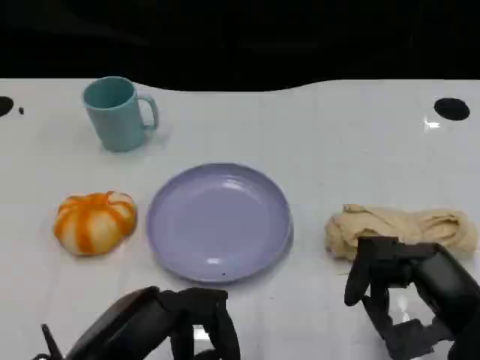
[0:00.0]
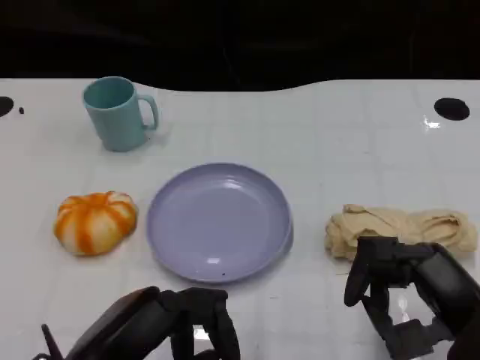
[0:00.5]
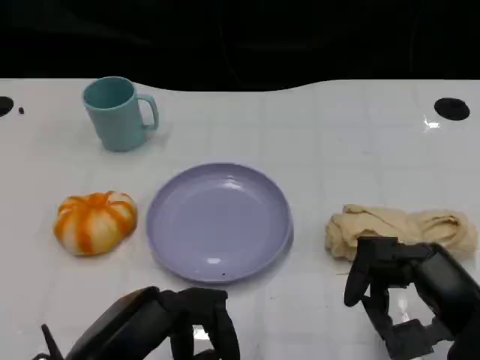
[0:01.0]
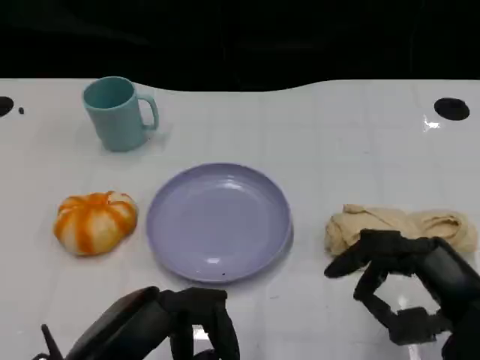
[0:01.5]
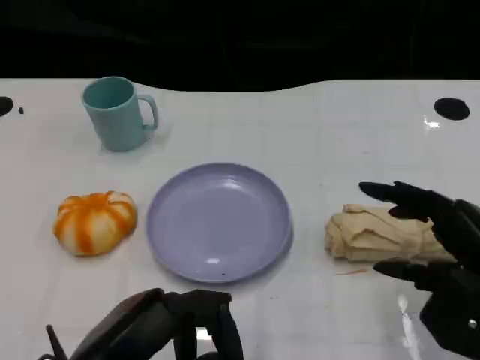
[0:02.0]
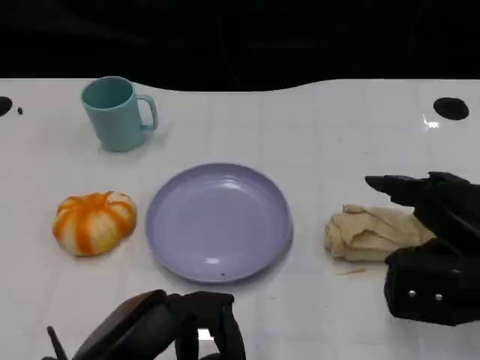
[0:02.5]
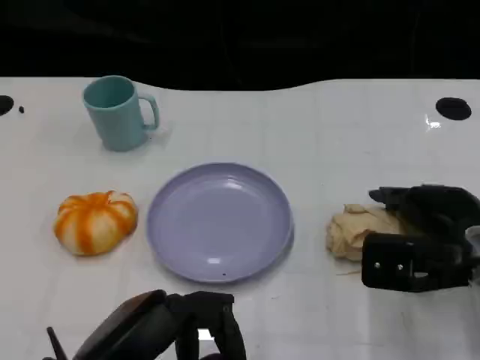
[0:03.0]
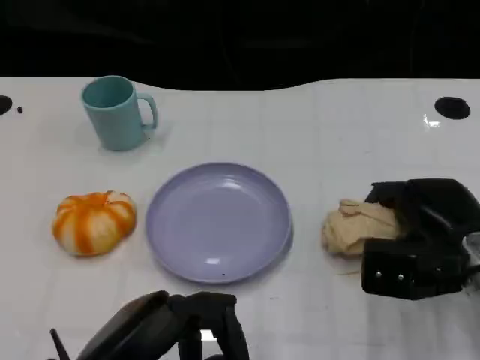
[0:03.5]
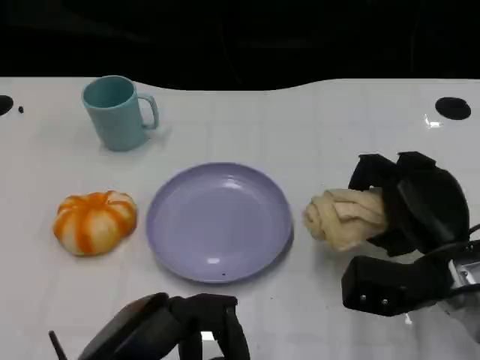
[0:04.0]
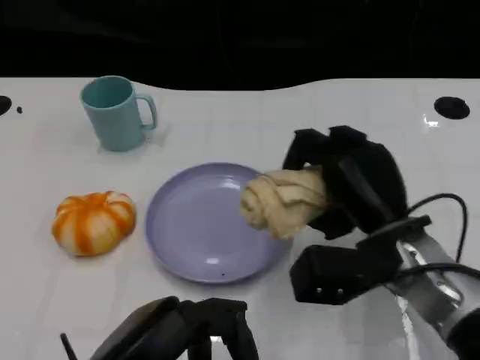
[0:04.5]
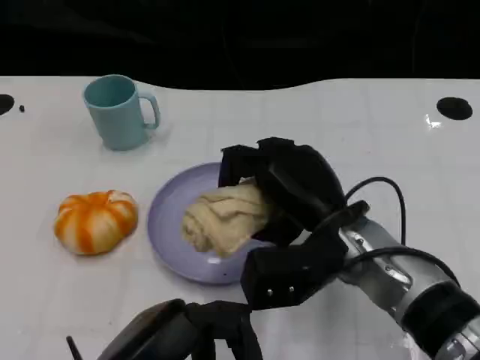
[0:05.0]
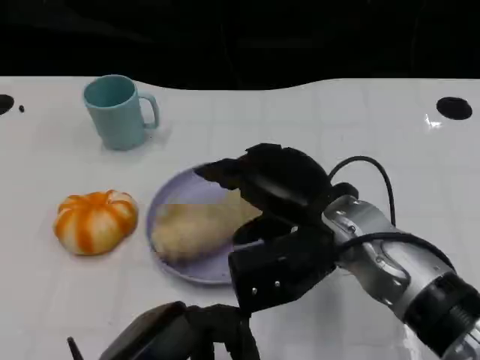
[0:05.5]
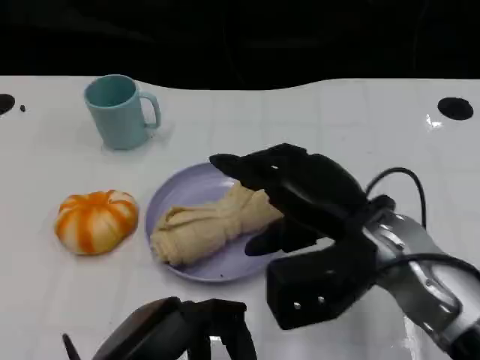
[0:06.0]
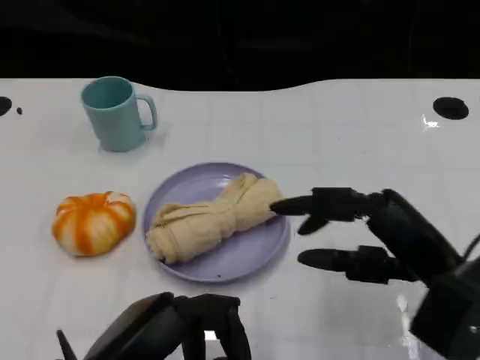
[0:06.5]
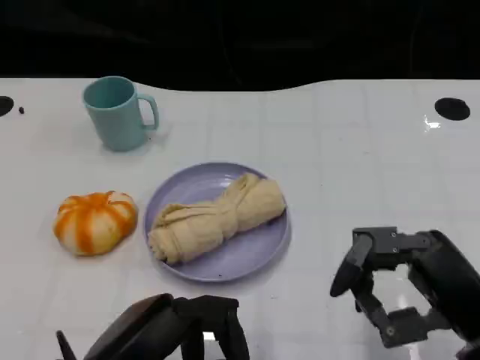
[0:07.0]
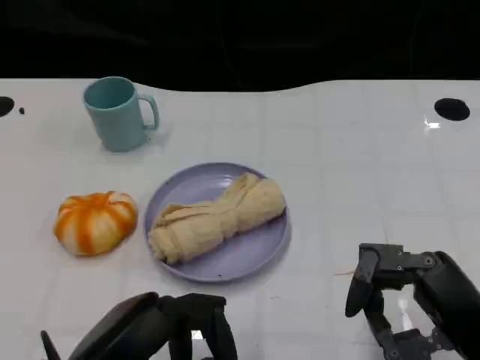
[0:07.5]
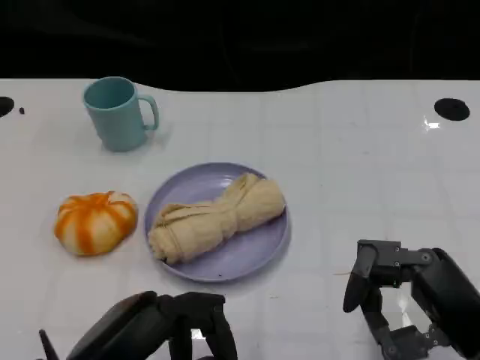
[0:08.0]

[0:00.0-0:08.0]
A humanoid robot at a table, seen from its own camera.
Task of the whole recording: Grasp the towel on the left side of the plate with the left hand and place it into the plate.
0:02.0 to 0:04.0: The right hand heads forward and downward, covering roughly 10 cm.
0:04.0 to 0:06.0: The right hand heads upward and to the left, covering about 10 cm.
0:06.0 to 0:08.0: The right hand shifts approximately 15 cm backward and to the right.

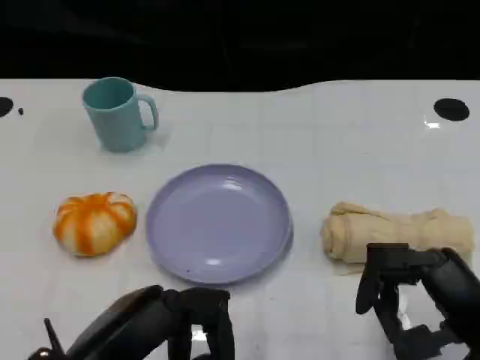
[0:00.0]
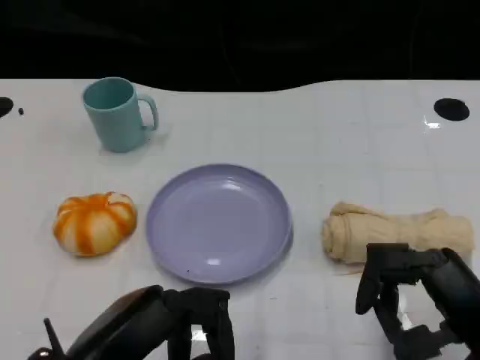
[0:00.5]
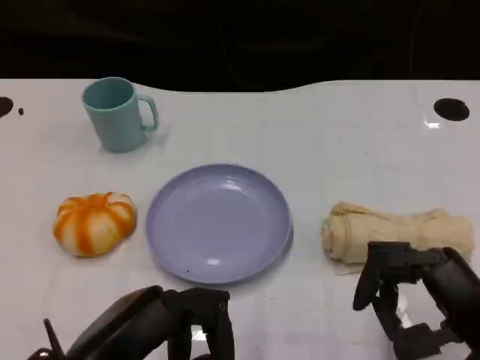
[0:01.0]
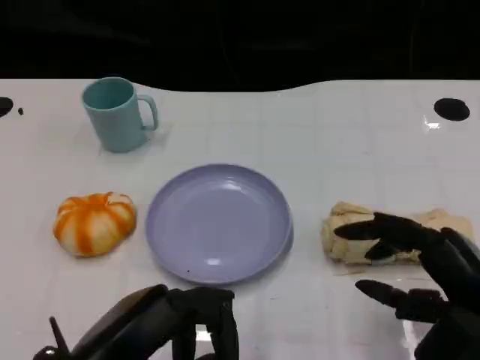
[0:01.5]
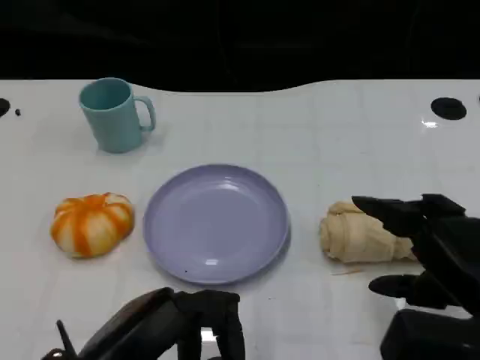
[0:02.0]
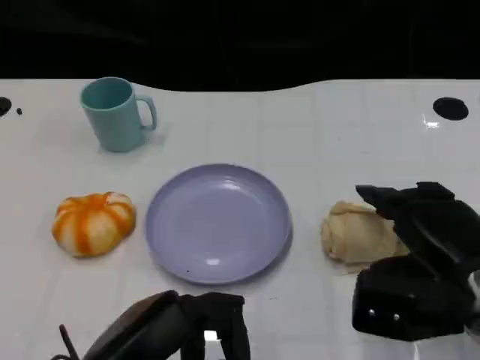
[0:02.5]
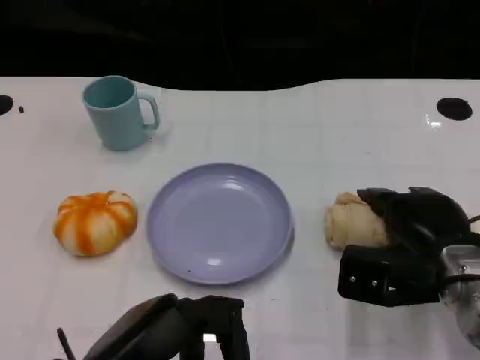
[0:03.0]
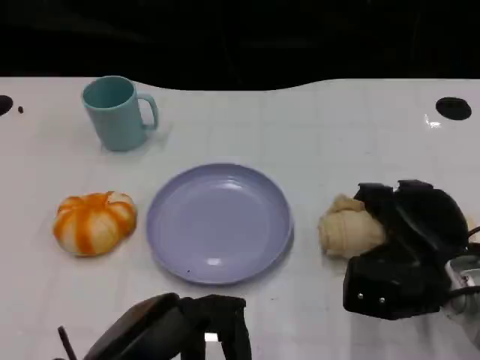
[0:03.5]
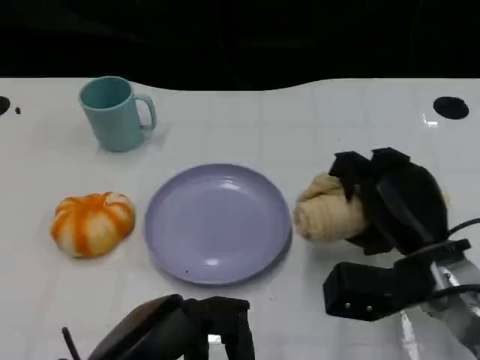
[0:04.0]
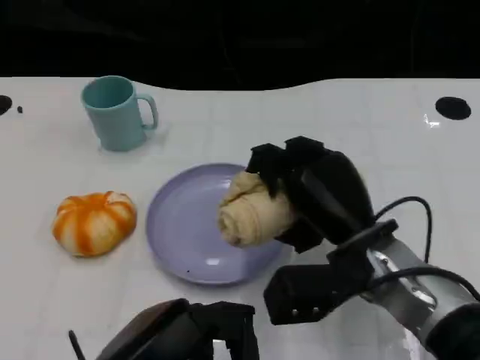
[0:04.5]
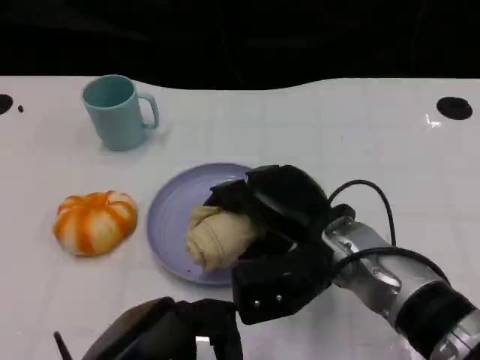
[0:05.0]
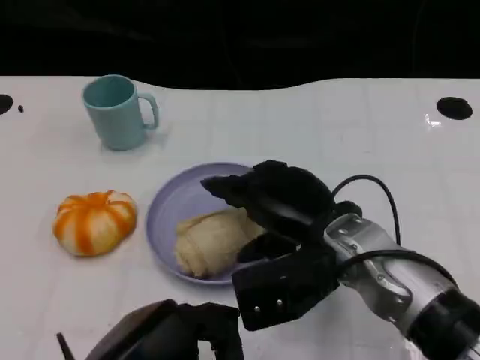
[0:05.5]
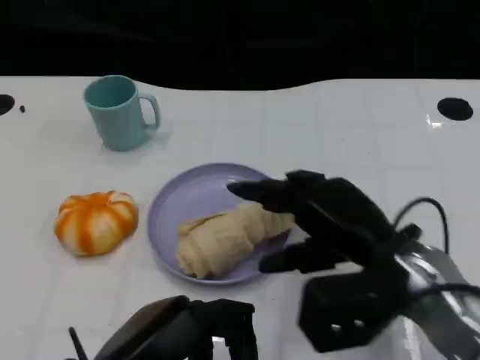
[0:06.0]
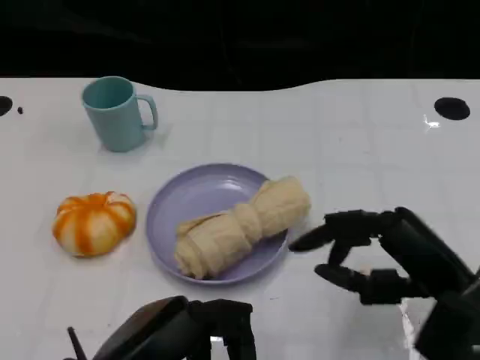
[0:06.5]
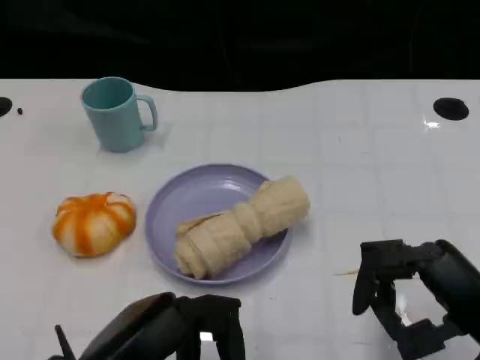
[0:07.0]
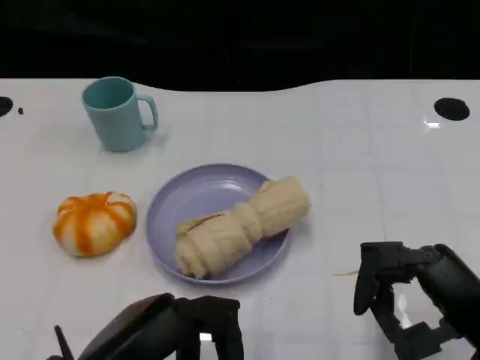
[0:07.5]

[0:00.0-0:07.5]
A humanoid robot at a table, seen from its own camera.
Task of the whole recording: Grasp the towel on the left side of the plate with the left hand and place it into the plate.
0:02.0 to 0:04.0: The right hand moves forward and to the left, roughly 10 cm.
0:04.0 to 0:05.5: The right hand is displaced to the left by approximately 10 cm.
0:05.5 to 0:07.5: The right hand heads to the right and backward, covering about 15 cm.
